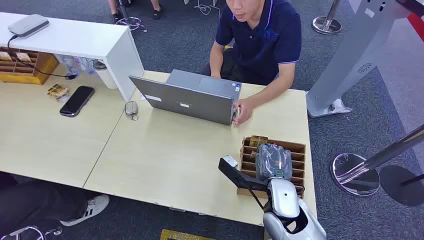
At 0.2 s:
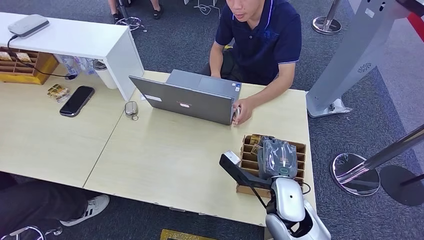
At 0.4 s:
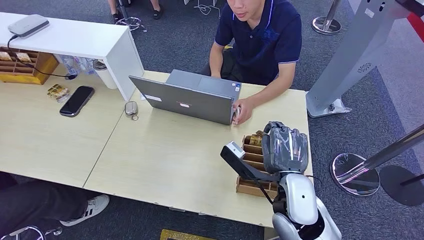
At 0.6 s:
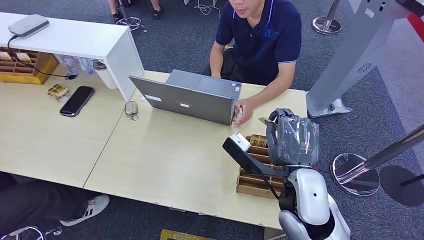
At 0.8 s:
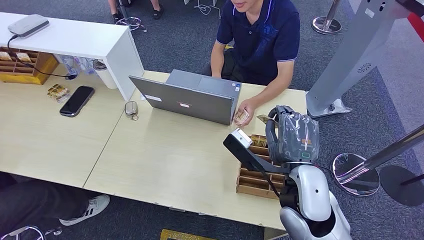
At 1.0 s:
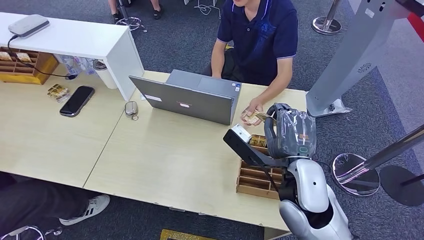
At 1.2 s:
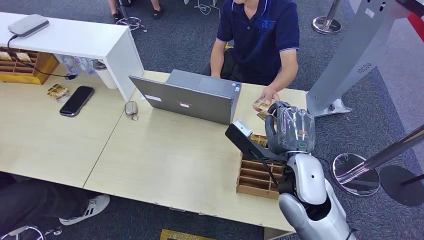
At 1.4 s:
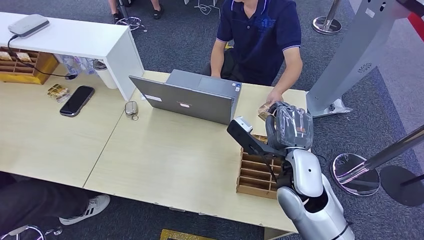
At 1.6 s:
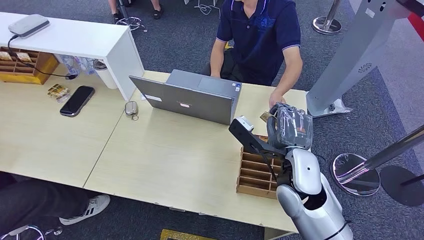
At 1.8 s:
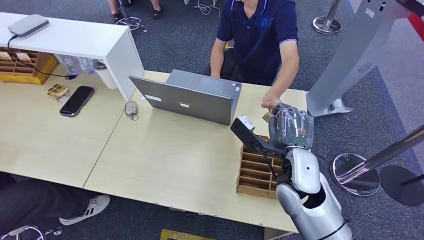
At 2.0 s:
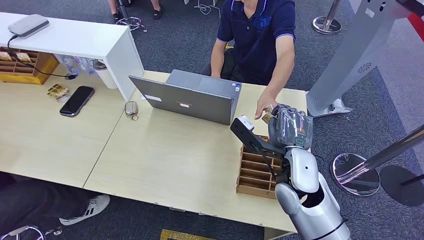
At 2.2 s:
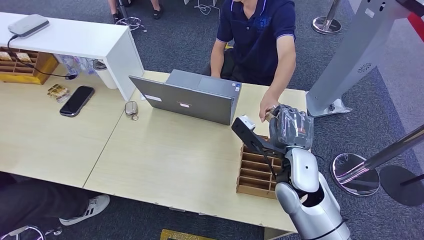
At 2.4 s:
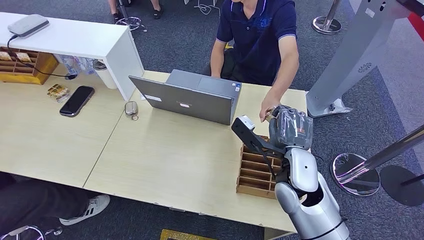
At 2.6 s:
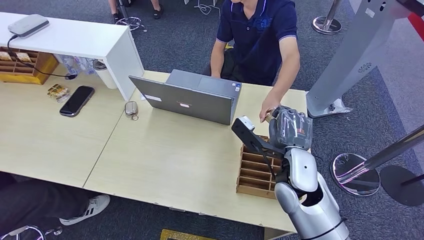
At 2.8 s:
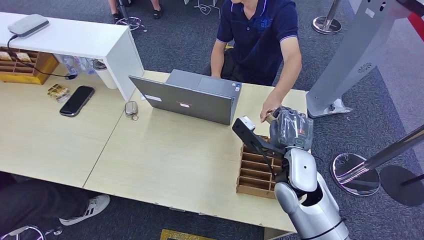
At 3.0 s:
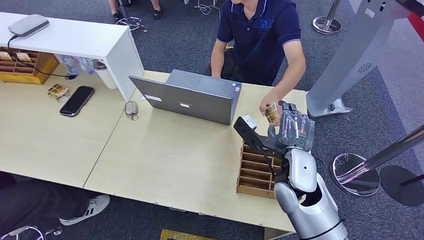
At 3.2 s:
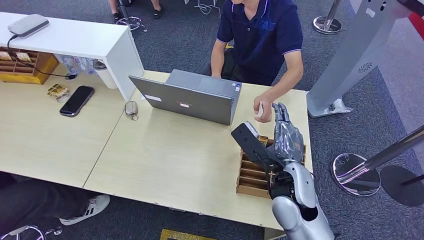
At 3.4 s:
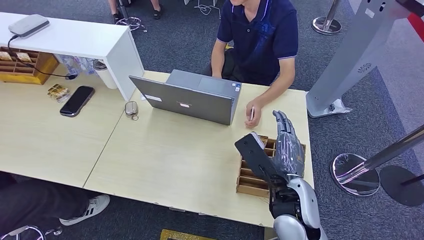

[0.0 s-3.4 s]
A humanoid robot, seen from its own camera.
Step, 0.0 to 0.6 s: Pick up the room card from the card holder.
Step, 2.2 to 3.4 s: Hand the room card to the target.
1.6 to 3.4 s: The right hand heads backward, covering roughly 5 cm.
